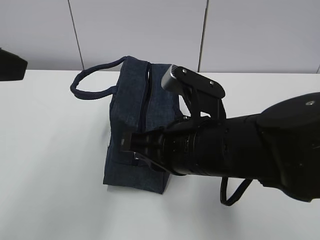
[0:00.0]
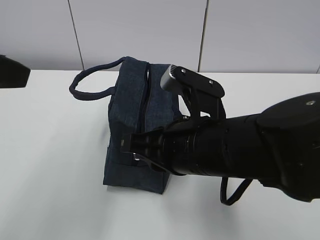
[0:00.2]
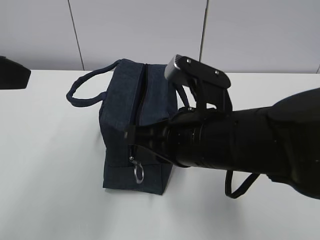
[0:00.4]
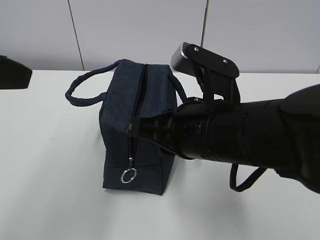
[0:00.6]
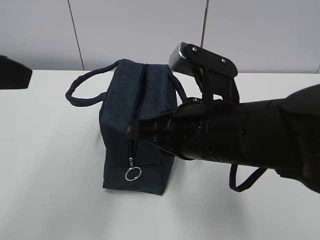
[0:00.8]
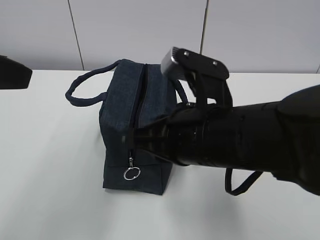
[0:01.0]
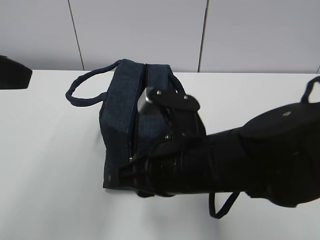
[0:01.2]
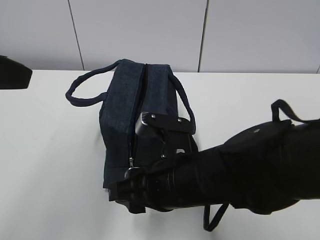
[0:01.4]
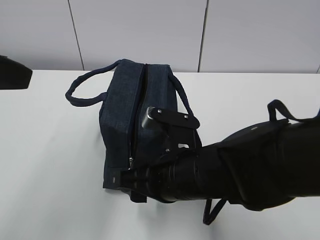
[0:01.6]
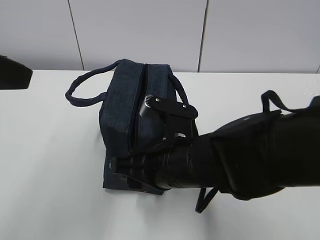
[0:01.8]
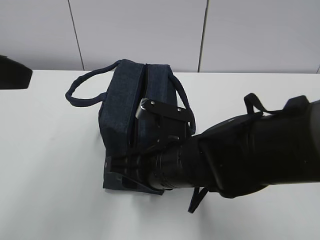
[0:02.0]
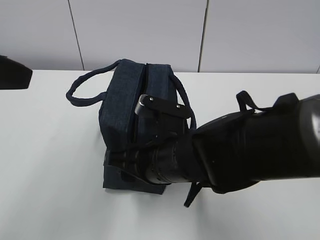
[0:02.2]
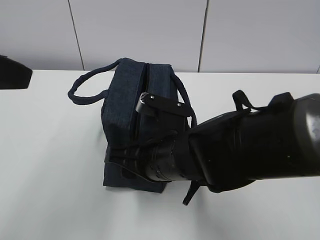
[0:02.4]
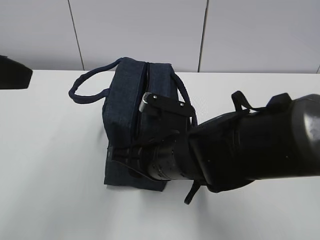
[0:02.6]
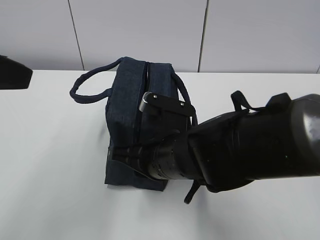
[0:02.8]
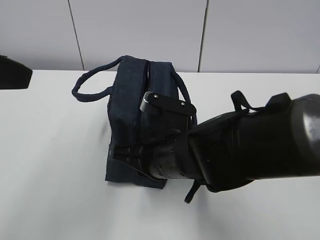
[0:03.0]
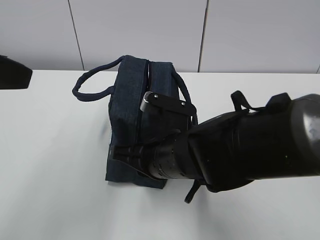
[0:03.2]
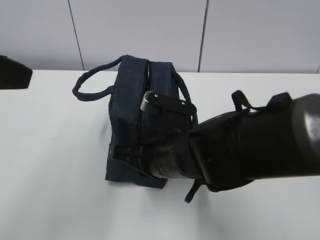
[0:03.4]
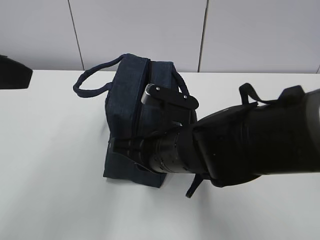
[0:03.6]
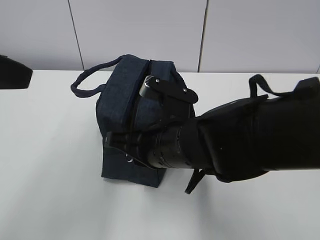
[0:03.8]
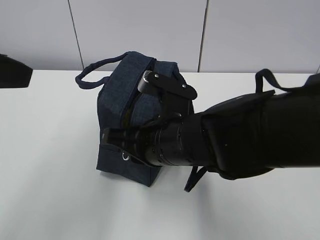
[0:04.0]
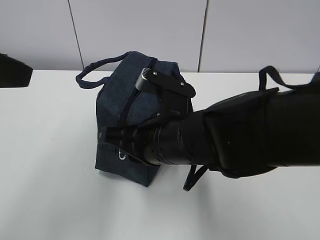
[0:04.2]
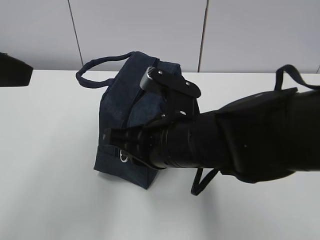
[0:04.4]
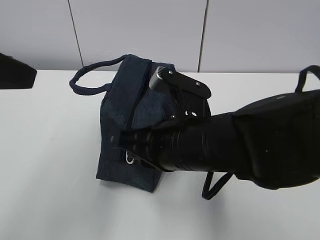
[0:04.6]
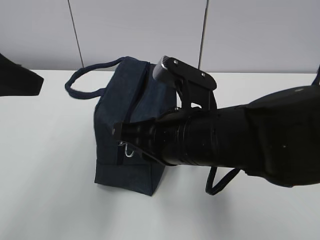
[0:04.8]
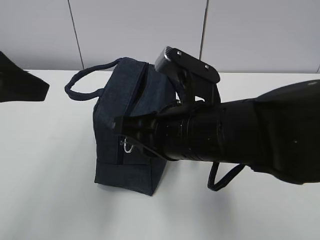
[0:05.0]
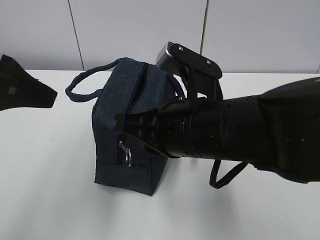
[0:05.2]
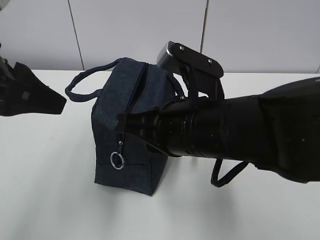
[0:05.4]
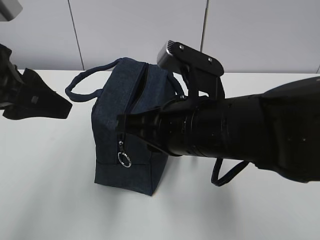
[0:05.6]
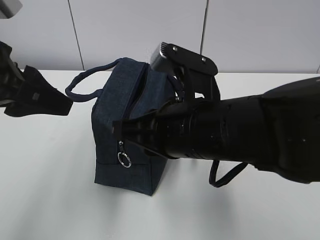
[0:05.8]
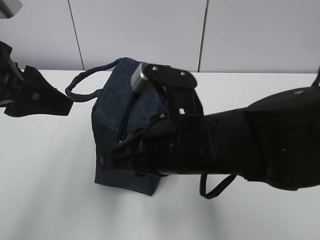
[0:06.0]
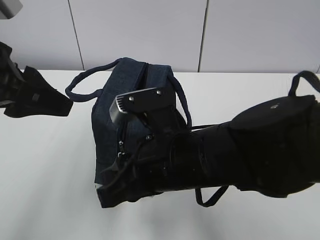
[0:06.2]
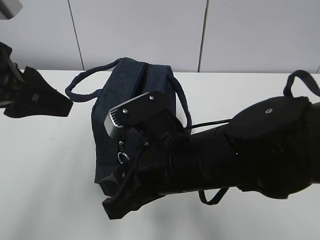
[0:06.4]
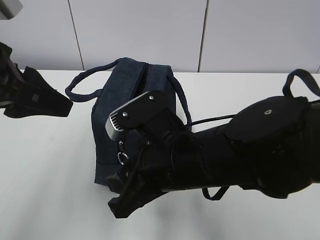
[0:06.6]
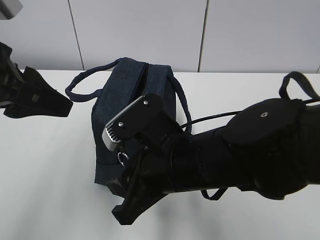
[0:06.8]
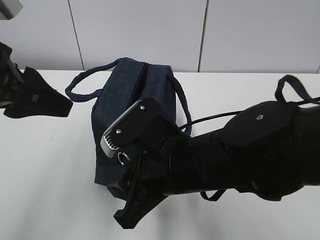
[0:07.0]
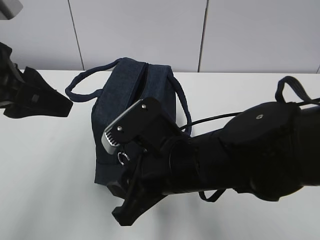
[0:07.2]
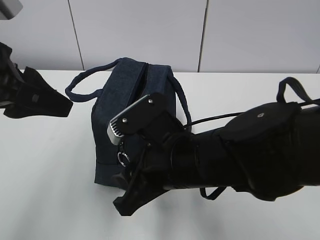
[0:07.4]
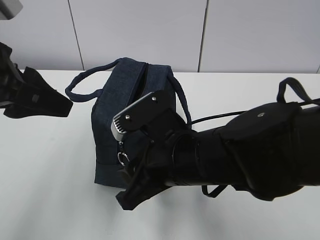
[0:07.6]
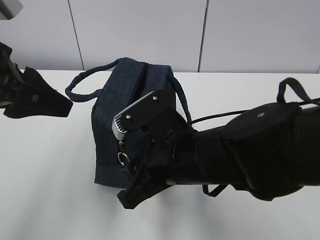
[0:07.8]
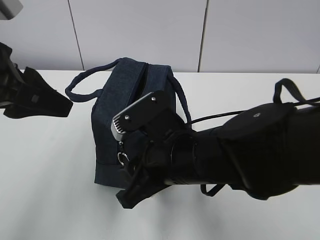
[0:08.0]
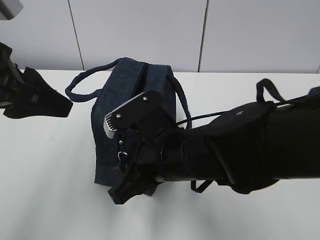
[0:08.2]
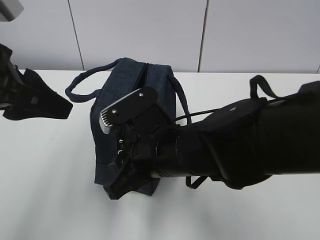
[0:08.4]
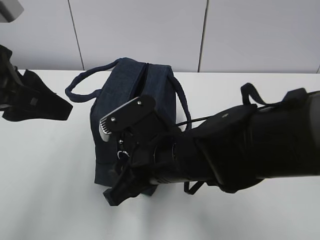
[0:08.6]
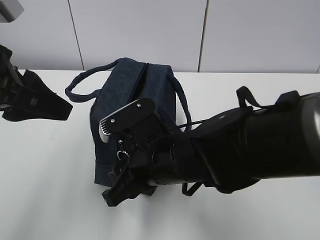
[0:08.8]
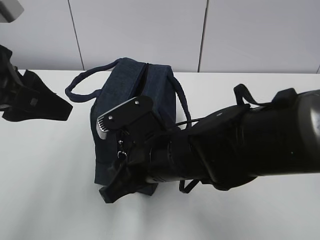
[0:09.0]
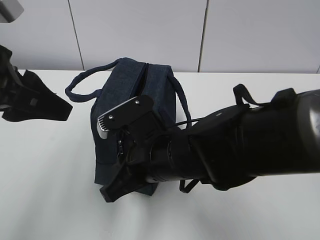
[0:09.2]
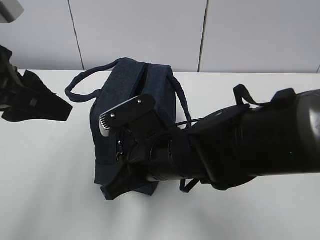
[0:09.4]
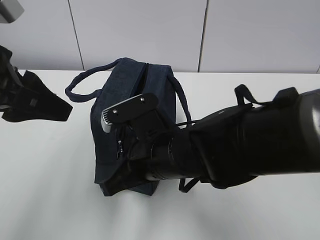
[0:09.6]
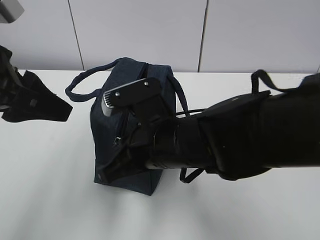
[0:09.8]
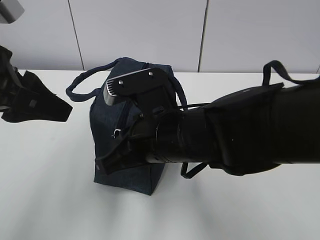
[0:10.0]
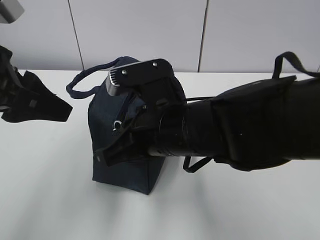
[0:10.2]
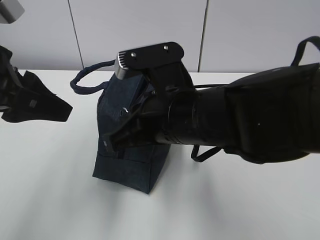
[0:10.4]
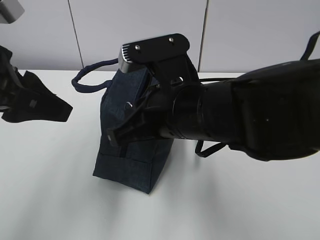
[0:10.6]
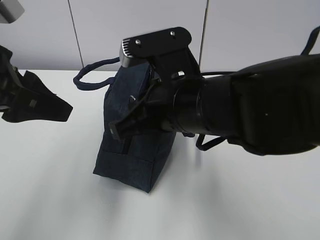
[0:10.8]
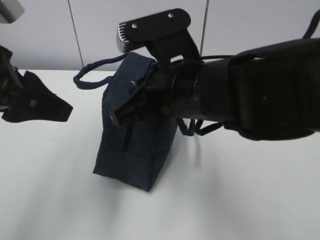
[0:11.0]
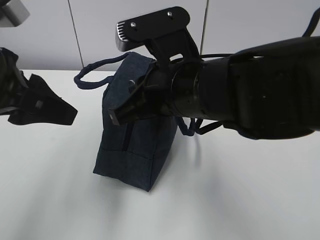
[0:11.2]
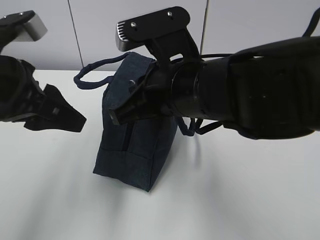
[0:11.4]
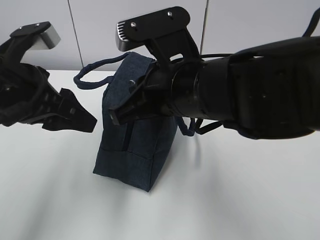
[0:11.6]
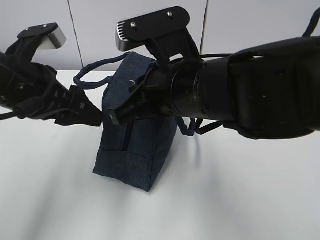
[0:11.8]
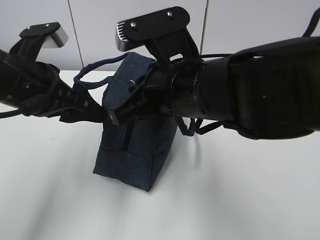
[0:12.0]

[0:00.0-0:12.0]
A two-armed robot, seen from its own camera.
Step, 0:00.0 to 0:06.4: Grab the lunch bag with your left hand.
Step, 0:06.6 to 0:11.6: Pull the zipper with your right hand.
0:00.0 to 0:01.6: The right gripper travels downward by approximately 5 cm, and opens up.
0:01.6 to 0:03.0: The right gripper closes its fingers.
0:03.0 to 0:04.4: The right gripper changes place by roughly 5 cm.
0:04.4 to 0:06.0: The left gripper moves some 5 cm.
0:06.0 to 0:07.6: The right gripper opens its fingers.
0:07.6 to 0:09.0: The grippers move only a little.
0:09.0 to 0:10.4: The right gripper goes roughly 5 cm upward, and closes.
0:10.4 to 0:12.0: The left gripper heads downward and forward, covering approximately 10 cm.

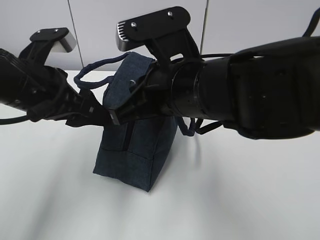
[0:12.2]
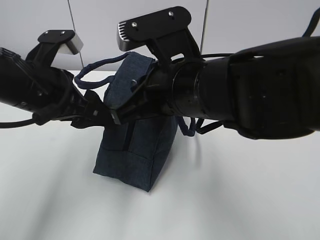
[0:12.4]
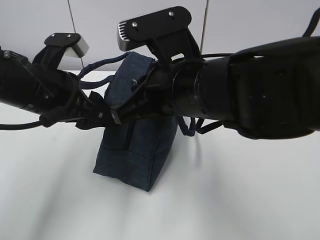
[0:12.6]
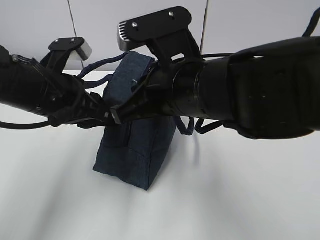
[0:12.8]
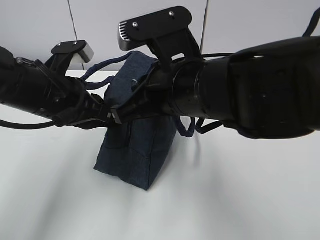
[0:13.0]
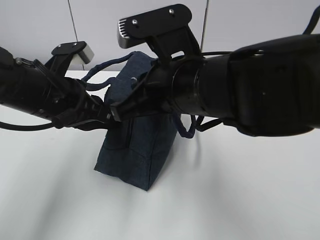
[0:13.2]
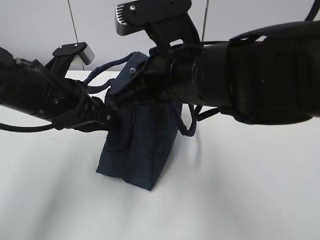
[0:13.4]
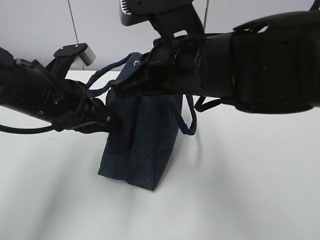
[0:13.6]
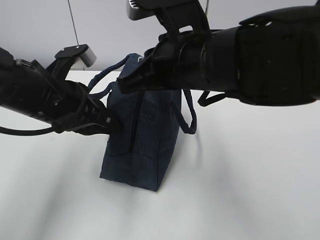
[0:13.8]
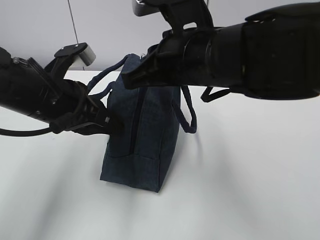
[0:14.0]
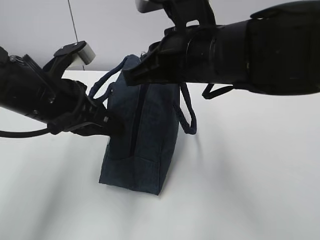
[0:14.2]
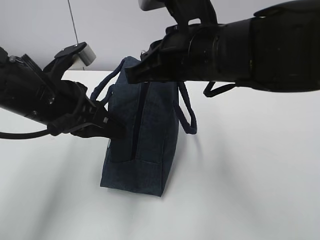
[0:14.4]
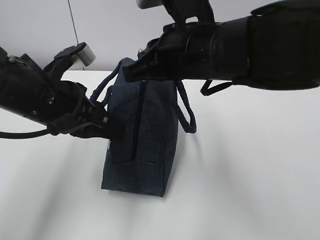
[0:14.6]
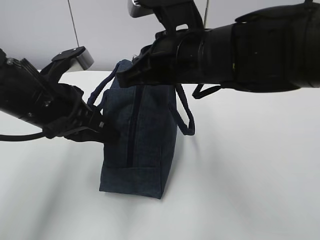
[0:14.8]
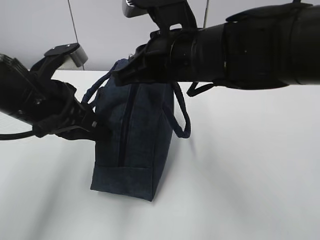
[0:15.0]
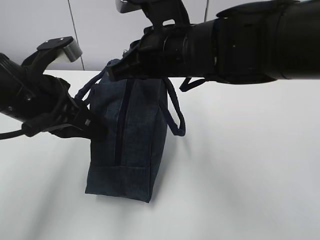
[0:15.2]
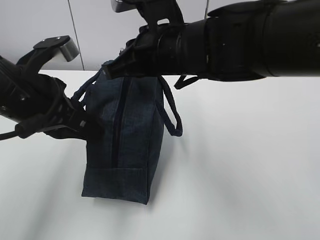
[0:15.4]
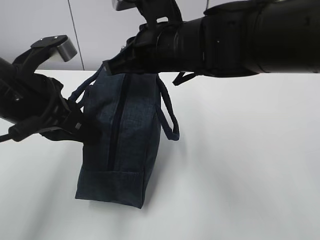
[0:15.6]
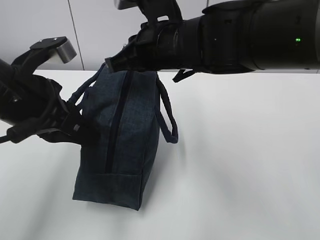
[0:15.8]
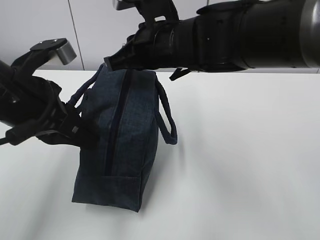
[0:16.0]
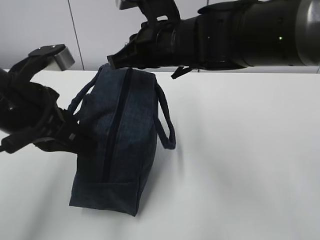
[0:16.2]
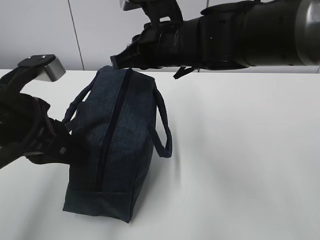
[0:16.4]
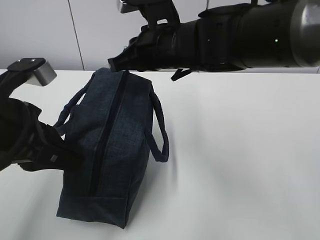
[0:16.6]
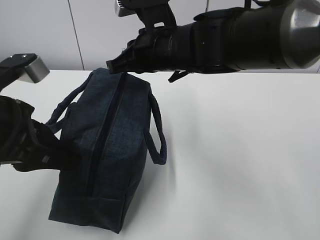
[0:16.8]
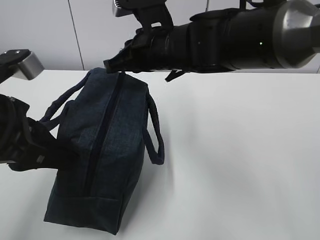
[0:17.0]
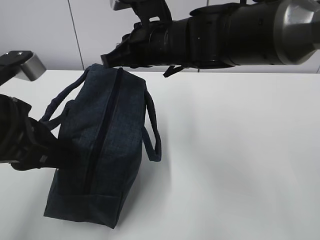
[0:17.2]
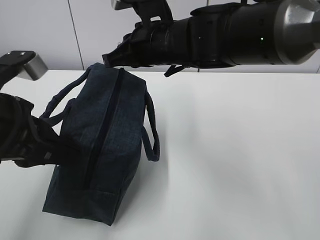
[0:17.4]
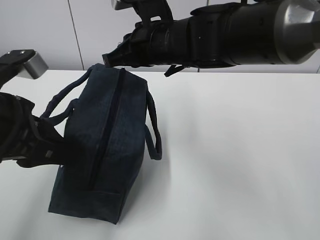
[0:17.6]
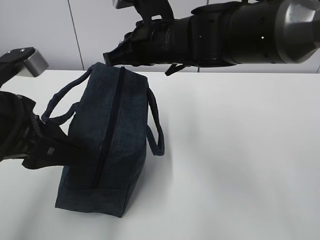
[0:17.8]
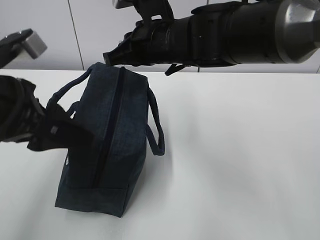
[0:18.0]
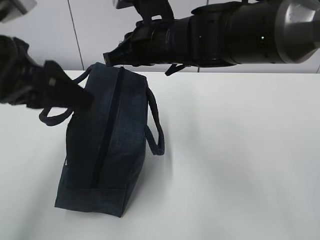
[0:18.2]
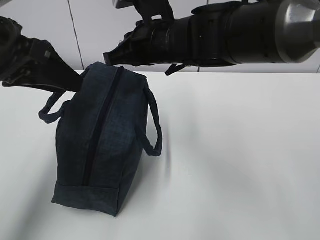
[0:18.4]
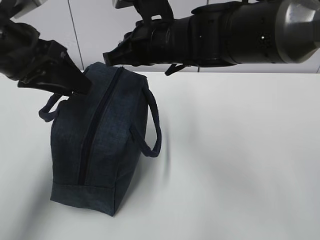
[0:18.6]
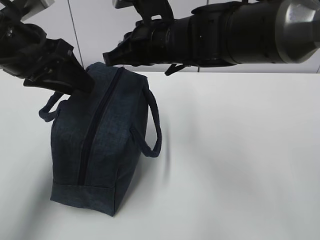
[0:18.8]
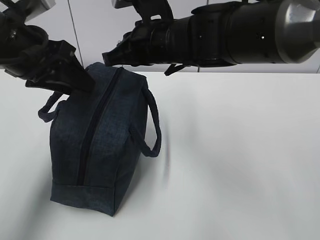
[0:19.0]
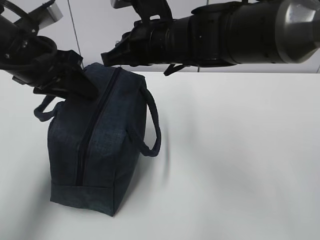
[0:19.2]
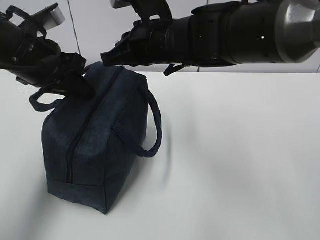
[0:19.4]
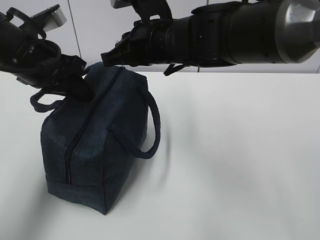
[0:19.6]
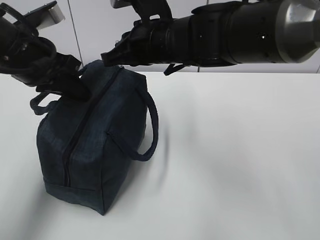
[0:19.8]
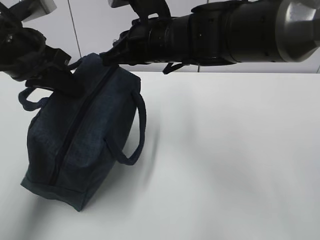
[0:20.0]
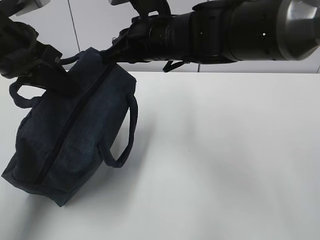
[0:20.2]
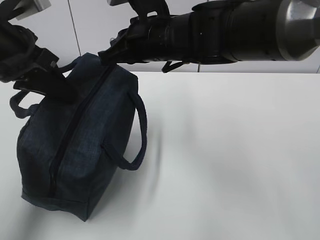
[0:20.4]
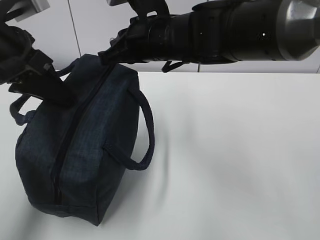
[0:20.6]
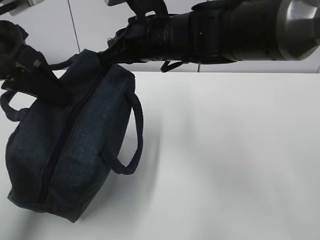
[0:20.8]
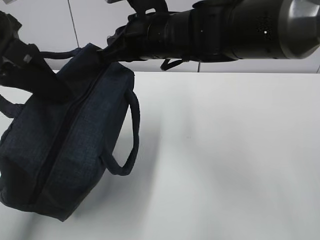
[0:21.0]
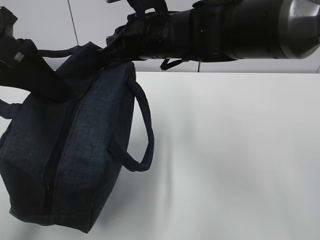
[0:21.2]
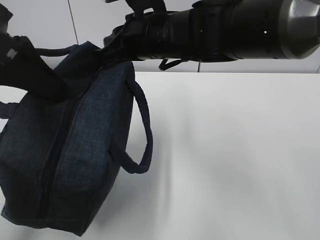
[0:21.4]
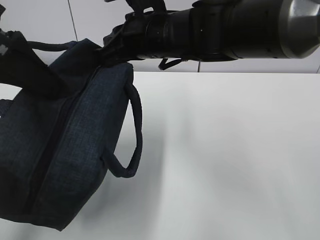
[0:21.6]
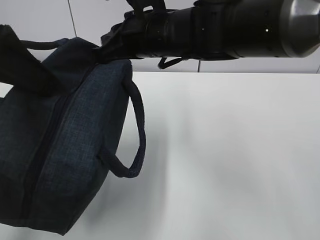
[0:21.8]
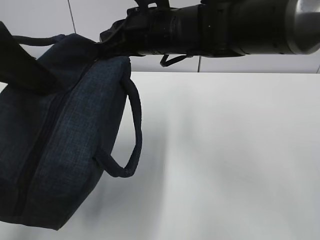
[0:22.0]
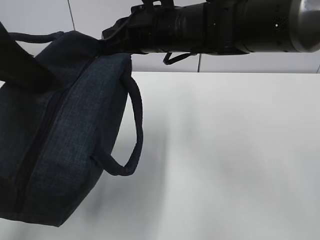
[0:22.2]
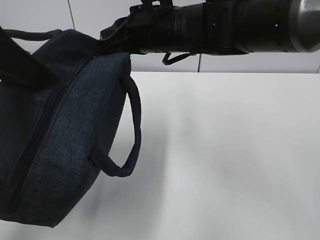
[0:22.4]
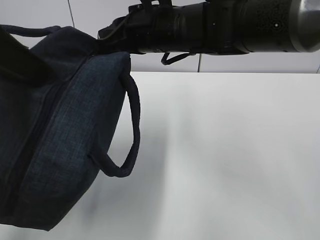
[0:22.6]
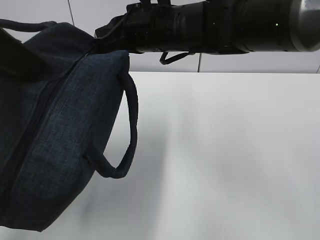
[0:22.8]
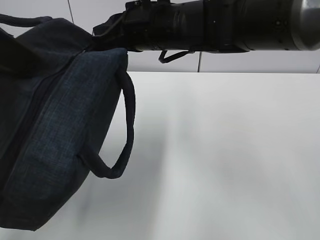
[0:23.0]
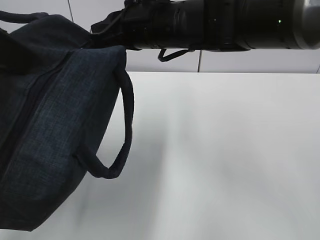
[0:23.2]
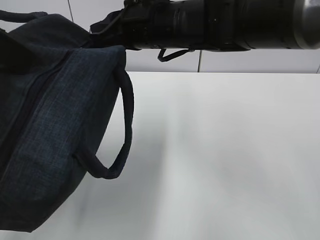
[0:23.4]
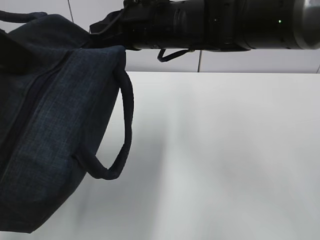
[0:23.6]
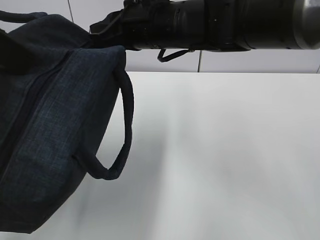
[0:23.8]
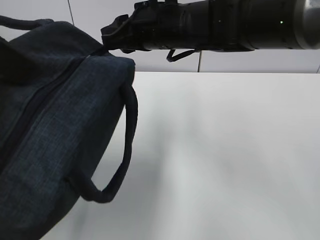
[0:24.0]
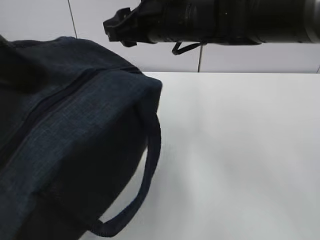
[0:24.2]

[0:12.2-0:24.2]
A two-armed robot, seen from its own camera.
Step, 0:12.2 to 0:14.0: Grab the lunch bag with your left hand.
0:12.2 to 0:13.8: The left gripper closes up.
0:15.2 to 0:16.6: The right gripper travels forward by approximately 5 cm. Meanwhile the left gripper shifts by some 5 cm.
0:16.6 to 0:18.2: The left gripper shifts roughly 5 cm upward, and opens its fingers.
0:18.2 to 0:19.8: The left gripper goes some 10 cm forward, and closes up.
0:19.8 to 0:21.2: The left gripper heads backward and upward, covering some 10 cm.
0:21.2 to 0:22.6: The left gripper ends up about 5 cm from where it was.
0:22.6 to 0:24.2: The right gripper opens up.
